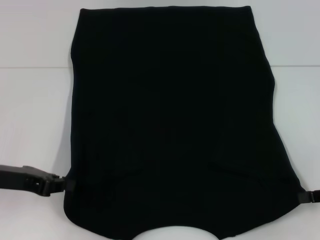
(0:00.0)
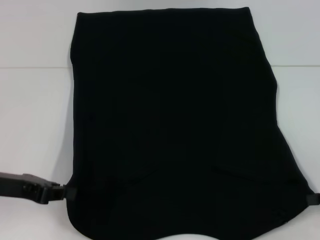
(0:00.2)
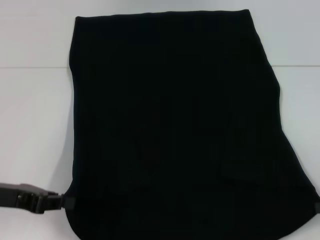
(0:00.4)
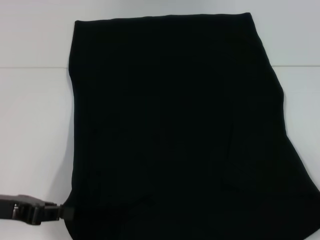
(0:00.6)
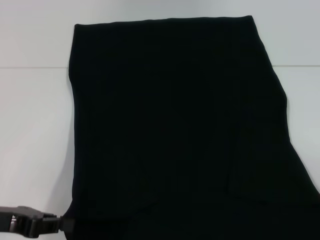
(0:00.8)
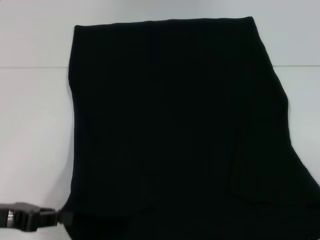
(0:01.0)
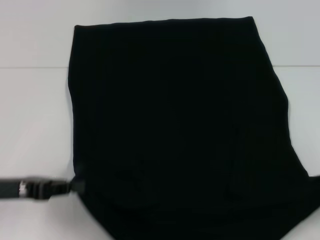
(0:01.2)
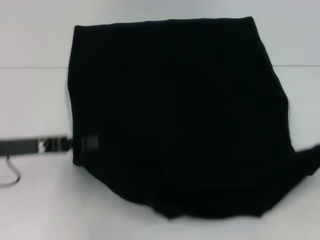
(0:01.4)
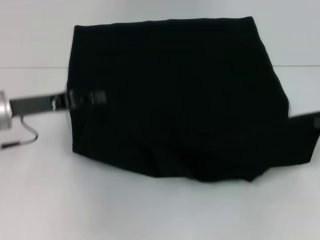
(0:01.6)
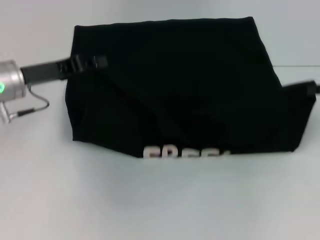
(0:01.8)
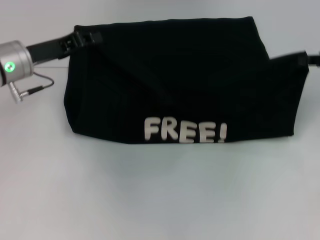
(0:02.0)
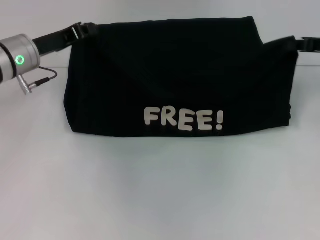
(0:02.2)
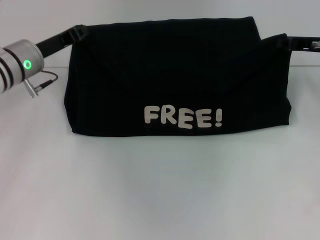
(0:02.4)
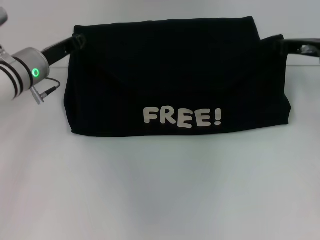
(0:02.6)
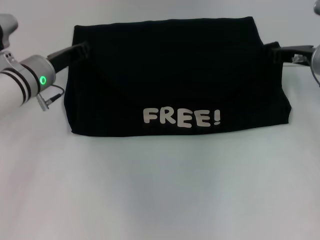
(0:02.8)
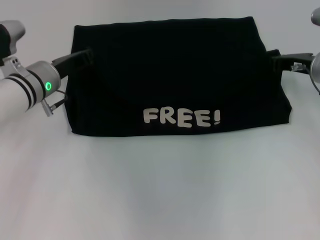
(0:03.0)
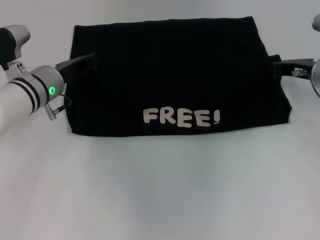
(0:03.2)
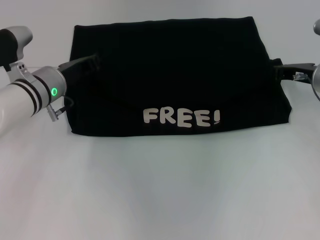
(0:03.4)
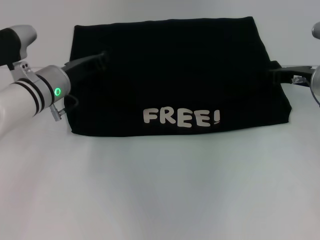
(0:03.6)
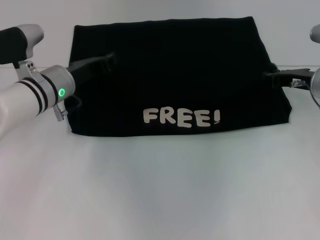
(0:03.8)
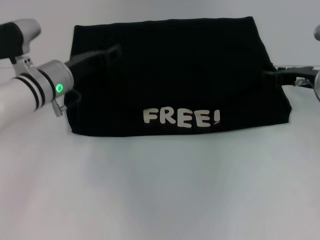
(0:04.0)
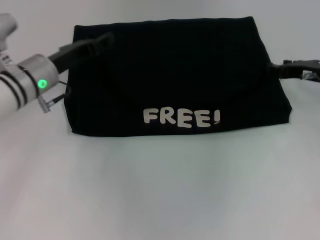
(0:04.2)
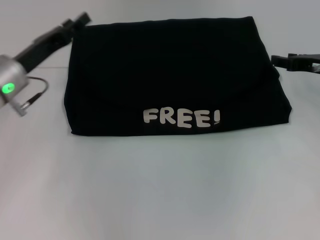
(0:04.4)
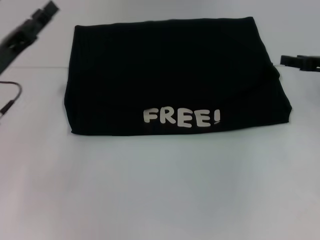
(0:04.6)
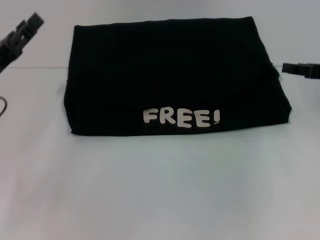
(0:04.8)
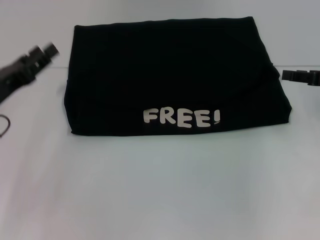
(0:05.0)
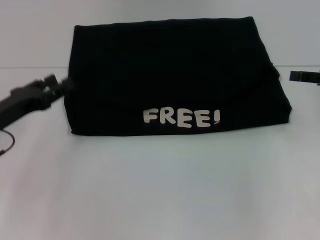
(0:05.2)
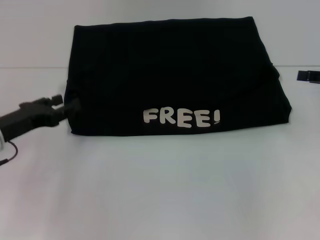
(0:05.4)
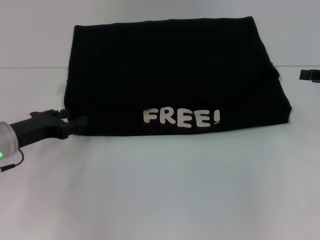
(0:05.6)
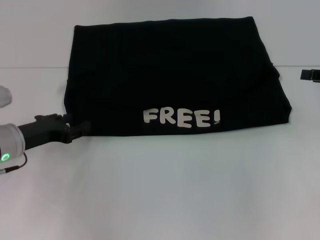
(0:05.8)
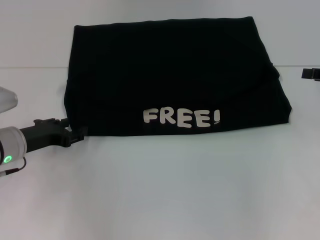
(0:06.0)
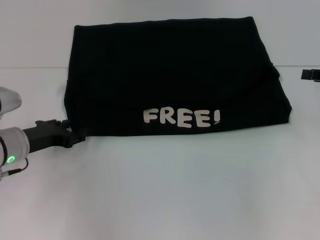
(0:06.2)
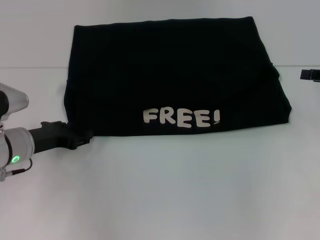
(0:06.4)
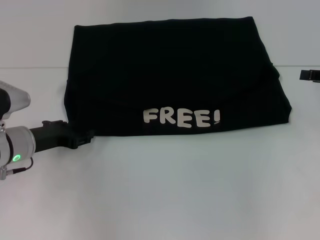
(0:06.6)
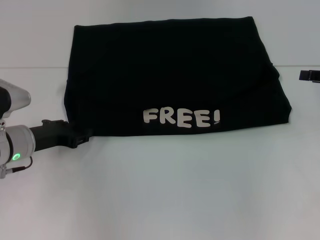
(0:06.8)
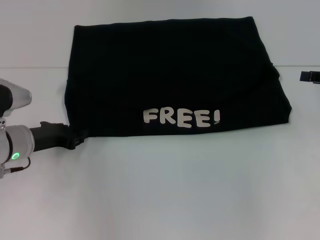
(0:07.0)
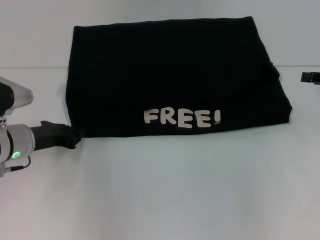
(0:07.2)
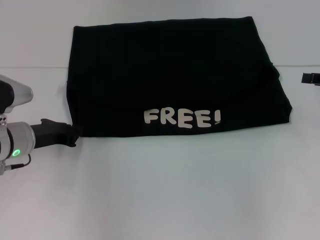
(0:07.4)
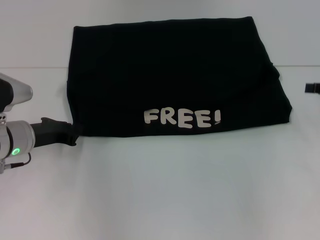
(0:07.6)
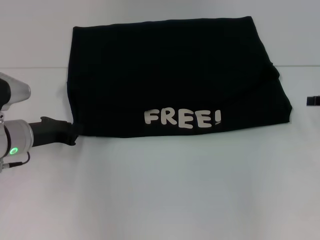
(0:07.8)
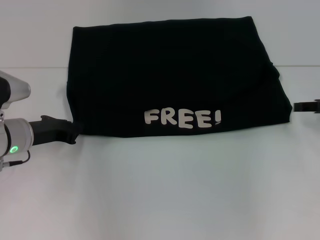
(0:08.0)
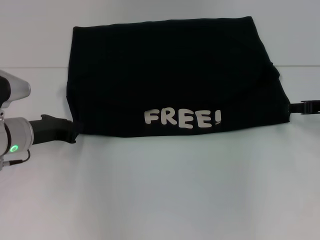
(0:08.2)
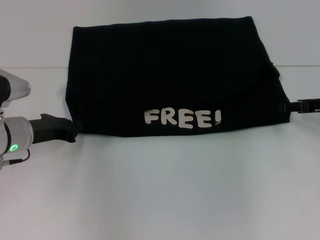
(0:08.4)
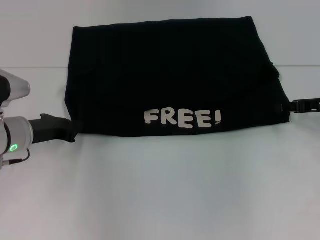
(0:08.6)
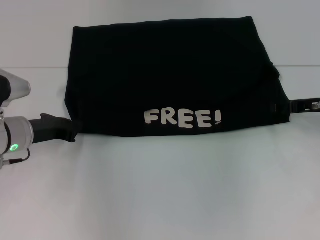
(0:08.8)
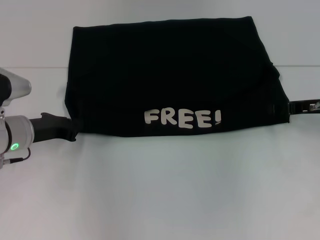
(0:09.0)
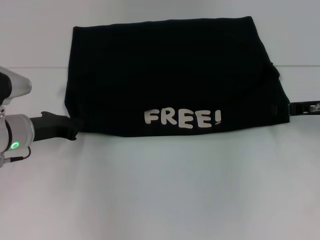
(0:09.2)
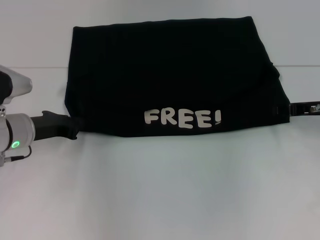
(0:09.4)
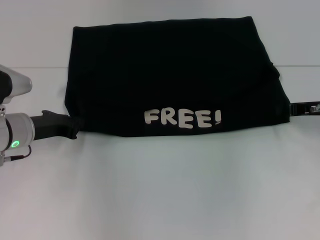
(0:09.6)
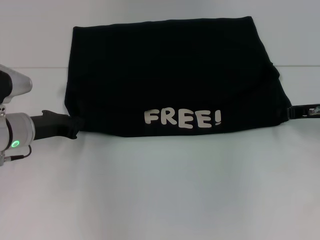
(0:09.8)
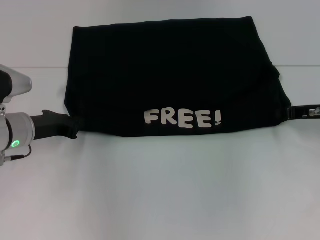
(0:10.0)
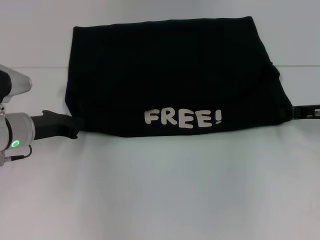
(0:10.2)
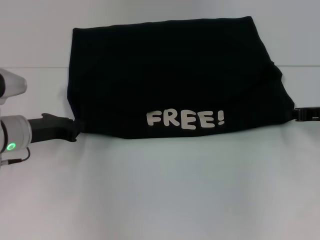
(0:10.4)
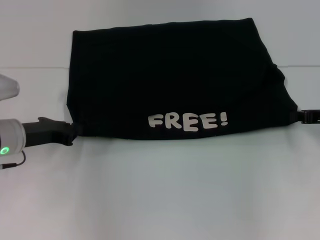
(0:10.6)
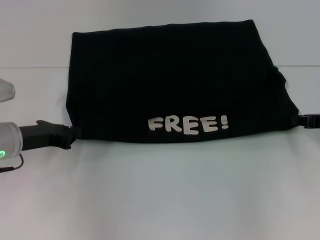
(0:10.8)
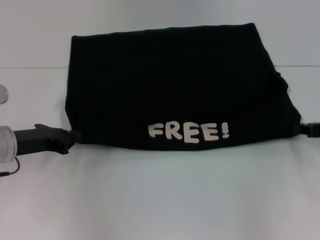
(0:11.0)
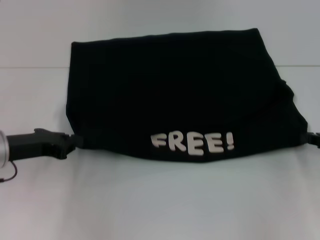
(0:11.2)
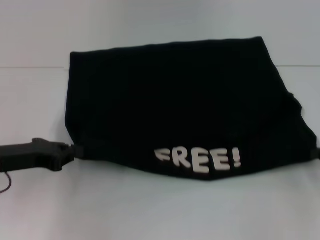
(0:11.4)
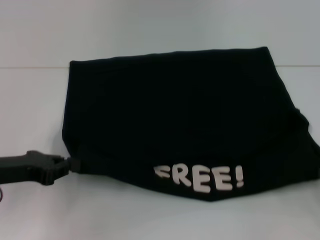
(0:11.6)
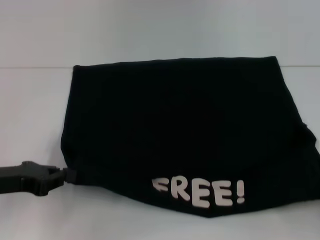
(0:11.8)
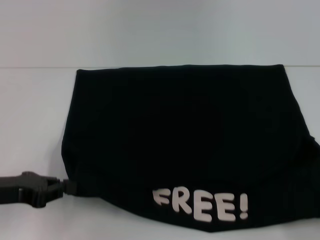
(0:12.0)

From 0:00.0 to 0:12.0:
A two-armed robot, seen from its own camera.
Step, from 0:00.0 to 0:04.2: Fold the clothes with your left hand.
Step, from 0:00.0 to 0:04.2: Fold the clothes with your right hand.
From 0:00.0 to 0:01.6: The right gripper shifts by roughly 5 cm; the left gripper goes about 5 cm forward.
From 0:01.6 to 0:03.0: The right gripper is displaced forward and to the left by approximately 15 cm. Meanwhile the left gripper shifts some 10 cm forward and to the right.
From 0:03.0 to 0:04.4: The right gripper opens; the left gripper ends up about 5 cm from where it was, and opens.
From 0:04.4 to 0:06.0: The right gripper moves to the right, about 5 cm. The left gripper shifts some 5 cm downward.
From 0:06.0 to 0:07.6: The left gripper closes.
From 0:07.6 to 0:09.0: The right gripper heads to the left, covering about 5 cm.
From 0:09.0 to 0:10.4: The right gripper closes.
From 0:10.4 to 0:12.0: The right gripper moves backward, roughly 20 cm. The left gripper shifts approximately 10 cm backward.

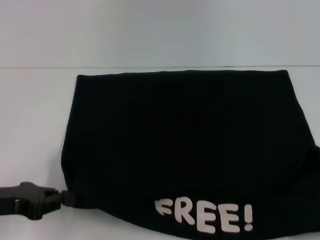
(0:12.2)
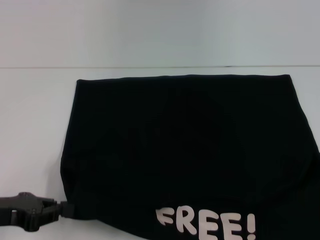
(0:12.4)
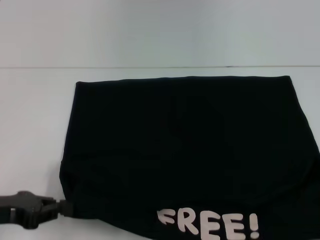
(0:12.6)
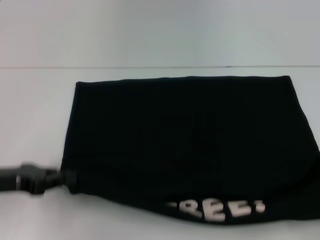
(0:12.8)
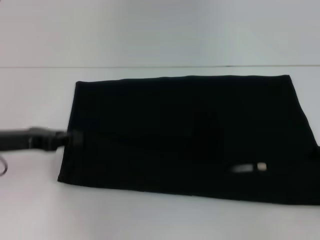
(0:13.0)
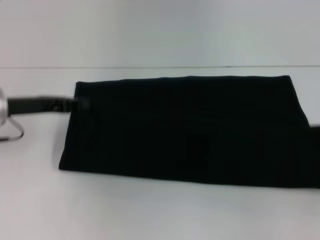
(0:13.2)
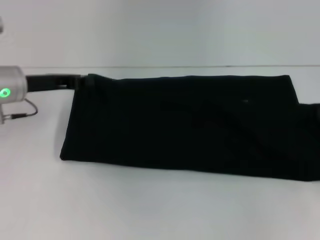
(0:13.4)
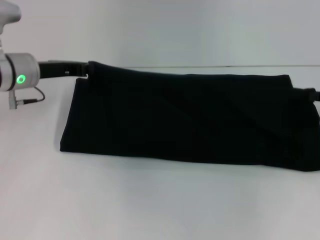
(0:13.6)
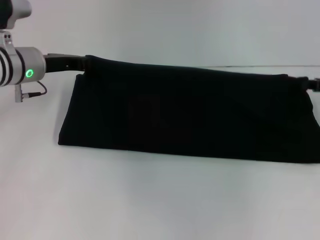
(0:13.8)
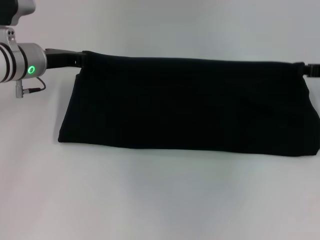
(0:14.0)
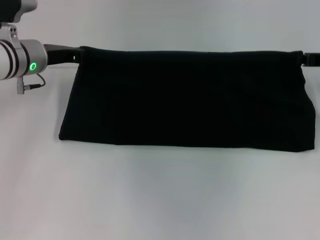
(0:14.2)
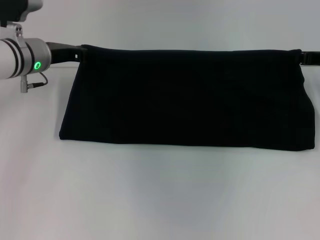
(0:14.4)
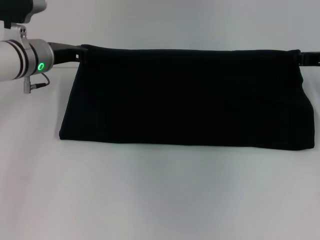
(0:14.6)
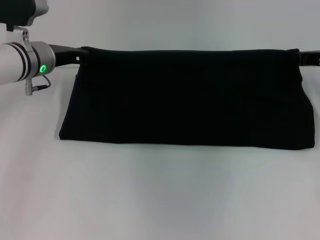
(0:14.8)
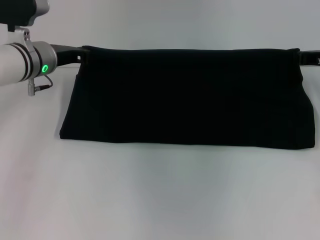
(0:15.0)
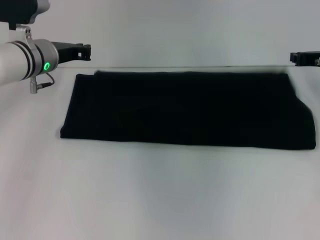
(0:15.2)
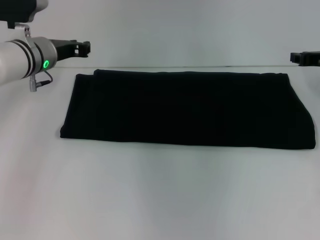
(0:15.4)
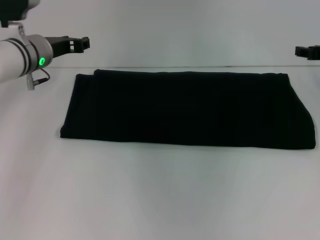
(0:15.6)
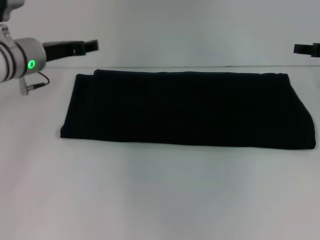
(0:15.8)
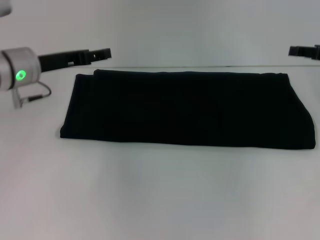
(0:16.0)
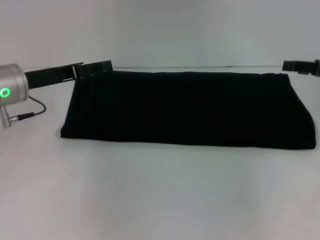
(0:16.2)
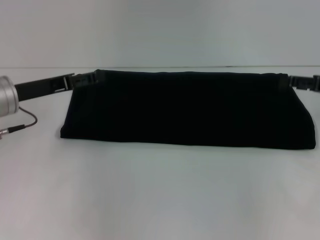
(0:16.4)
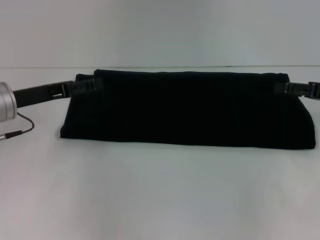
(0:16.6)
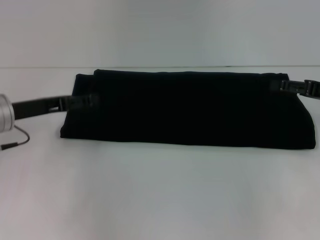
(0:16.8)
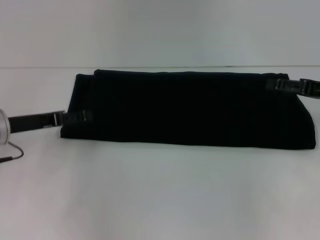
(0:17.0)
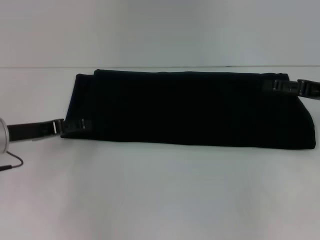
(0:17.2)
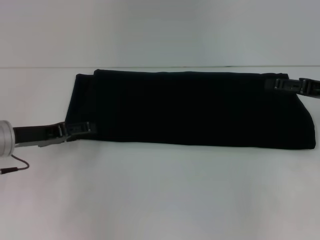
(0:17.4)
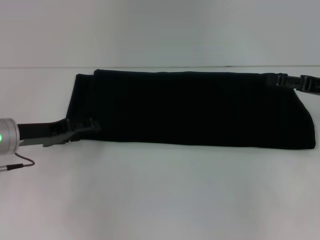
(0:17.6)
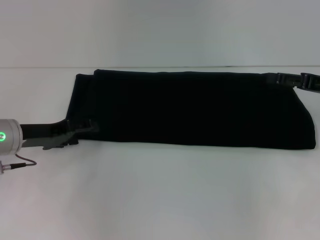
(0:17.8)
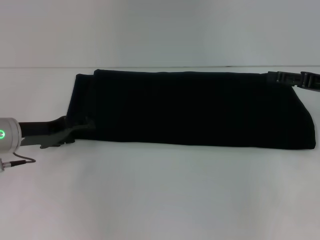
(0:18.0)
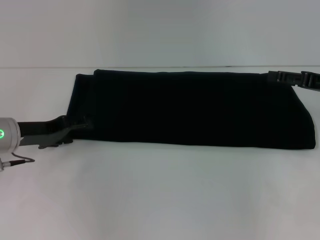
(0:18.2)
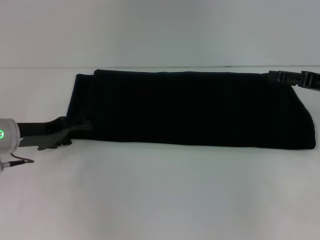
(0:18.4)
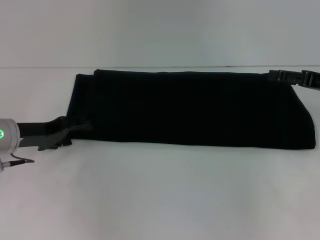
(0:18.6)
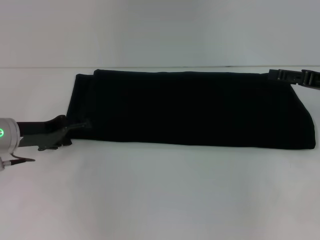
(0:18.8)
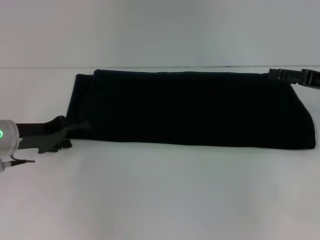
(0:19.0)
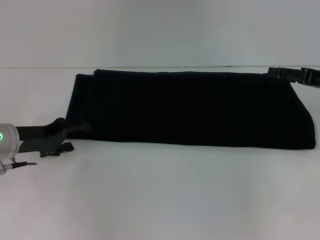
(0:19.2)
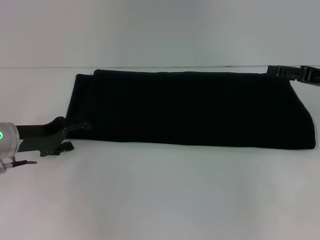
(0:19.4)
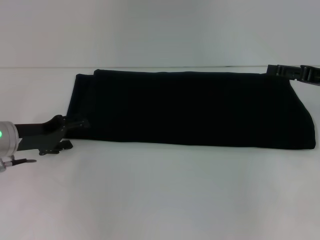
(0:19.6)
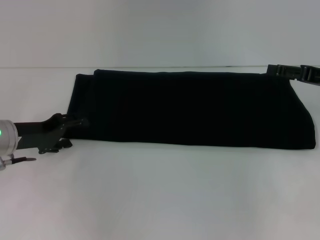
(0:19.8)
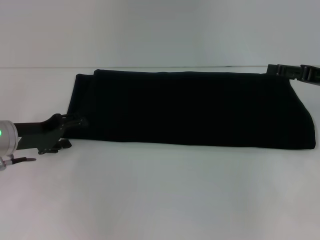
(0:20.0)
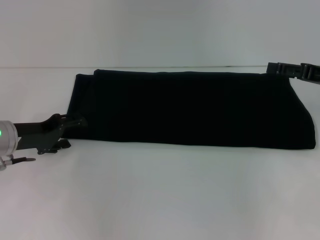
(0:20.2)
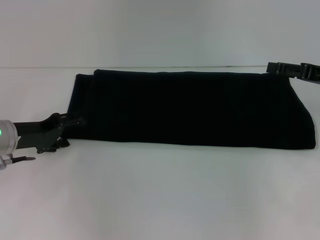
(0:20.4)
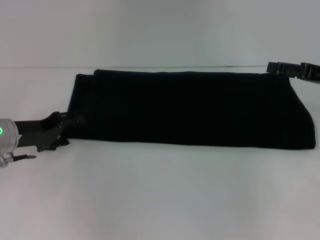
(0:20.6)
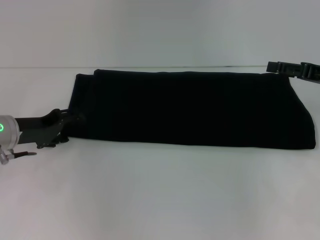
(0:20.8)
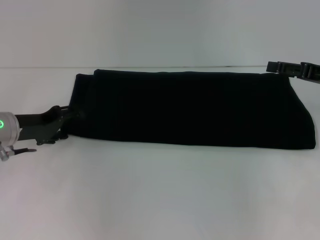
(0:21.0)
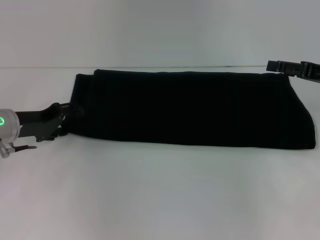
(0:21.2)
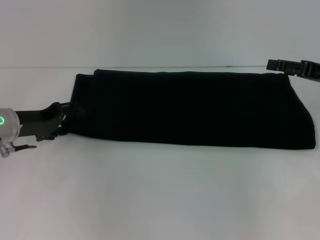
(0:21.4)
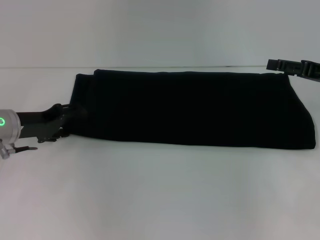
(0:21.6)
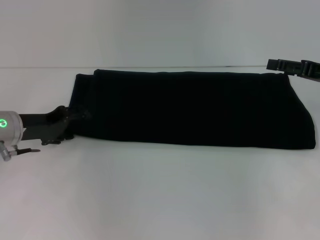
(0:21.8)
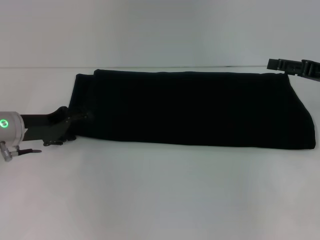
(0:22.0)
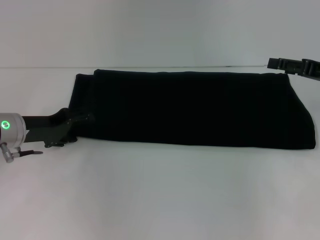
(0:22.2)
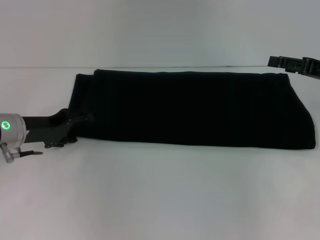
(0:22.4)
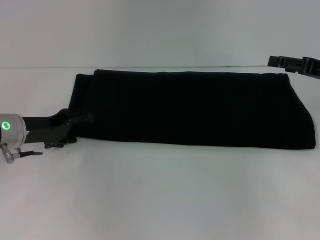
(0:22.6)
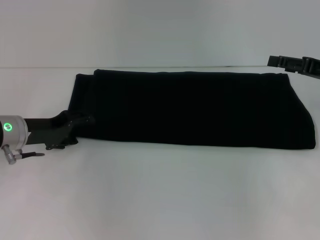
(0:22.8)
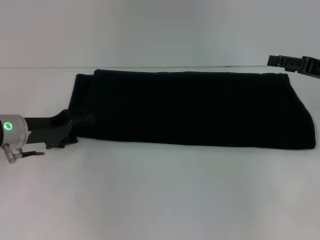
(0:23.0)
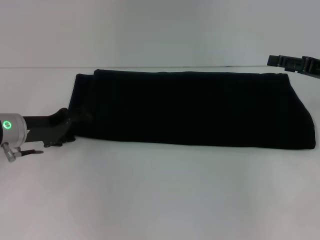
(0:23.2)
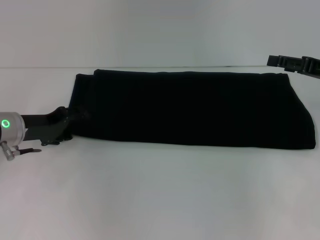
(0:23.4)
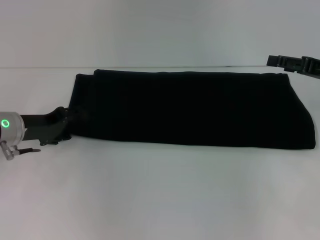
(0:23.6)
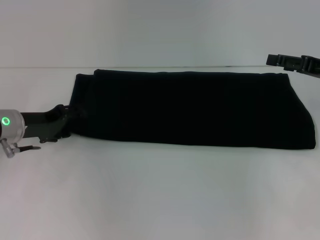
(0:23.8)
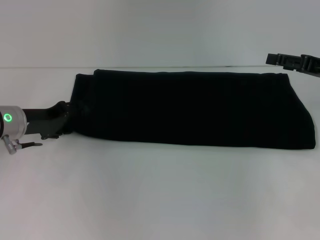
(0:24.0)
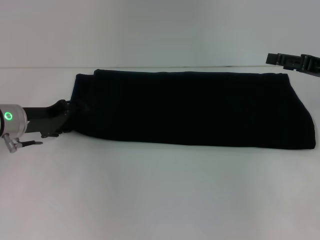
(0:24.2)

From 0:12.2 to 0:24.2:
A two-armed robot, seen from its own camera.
Step, from 0:12.6 to 0:15.2: Fold the clothes with your right hand.
From 0:12.2 to 0:13.8: The grippers both shift forward by roughly 20 cm.
From 0:13.8 to 0:15.2: The right gripper moves roughly 5 cm.
From 0:15.2 to 0:16.6: The right gripper shifts roughly 10 cm backward, and opens its fingers. The left gripper shifts roughly 10 cm backward and to the left, and opens its fingers.
From 0:18.2 to 0:21.2: There are only small adjustments of the grippers.
From 0:21.2 to 0:22.6: Both grippers stay about where they are.
From 0:22.6 to 0:24.2: There are only small adjustments of the grippers.
